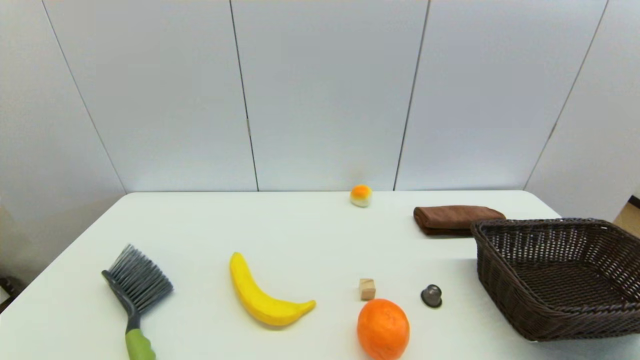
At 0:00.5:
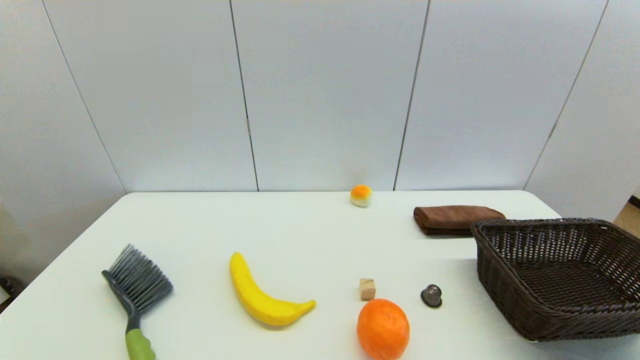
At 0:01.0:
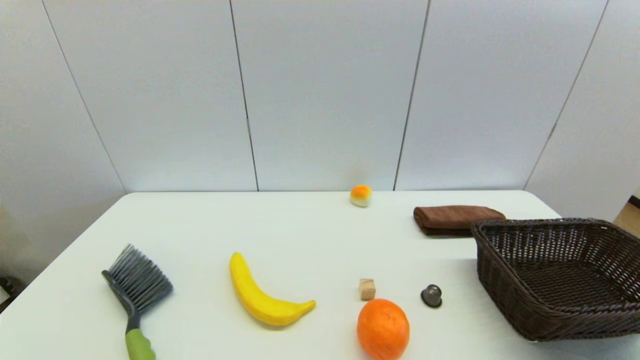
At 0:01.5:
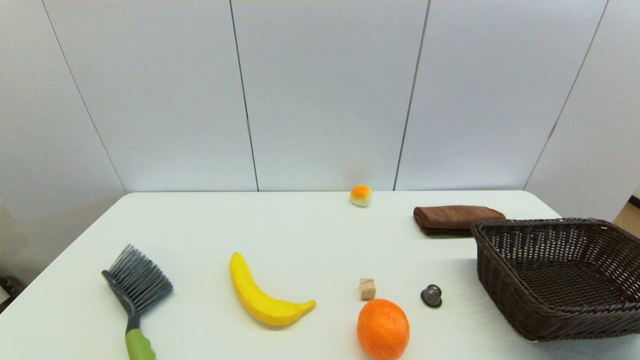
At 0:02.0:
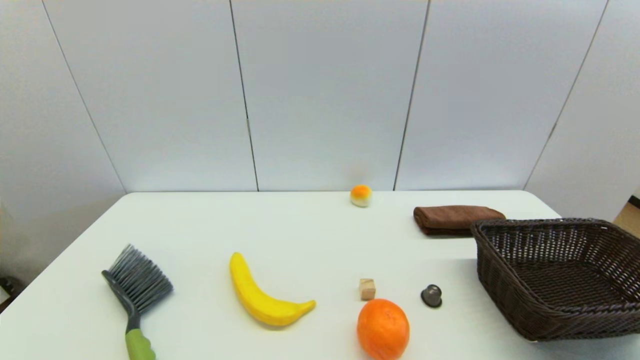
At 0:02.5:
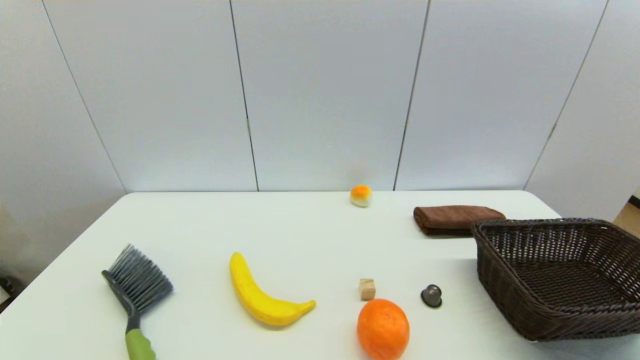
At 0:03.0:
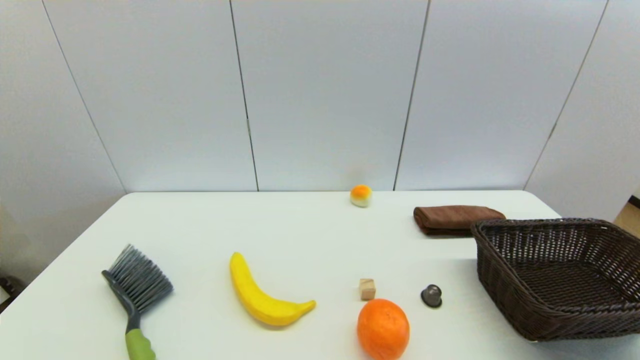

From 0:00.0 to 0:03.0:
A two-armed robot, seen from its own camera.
From 0:00.0 to 0:03.0: Both grippers stay about where they are.

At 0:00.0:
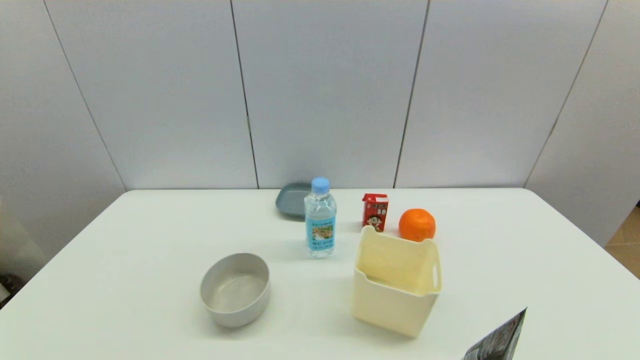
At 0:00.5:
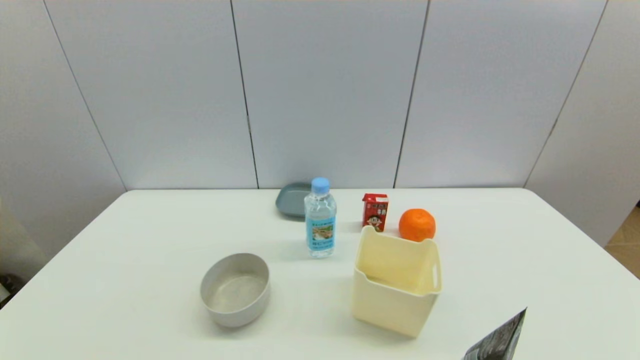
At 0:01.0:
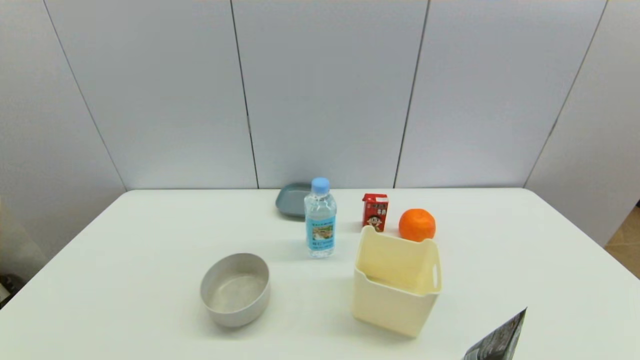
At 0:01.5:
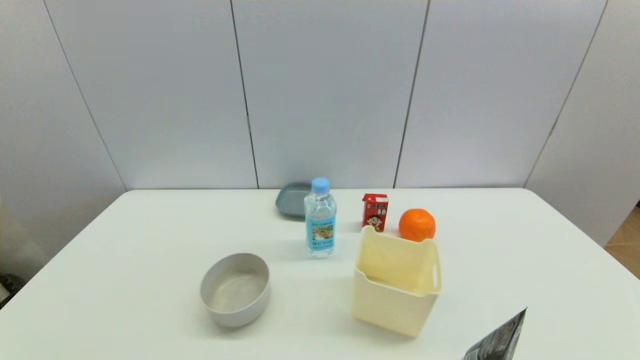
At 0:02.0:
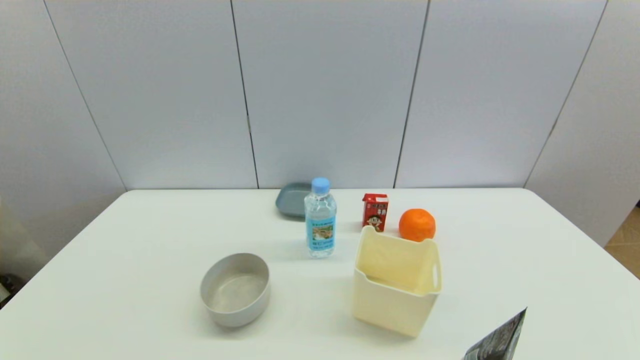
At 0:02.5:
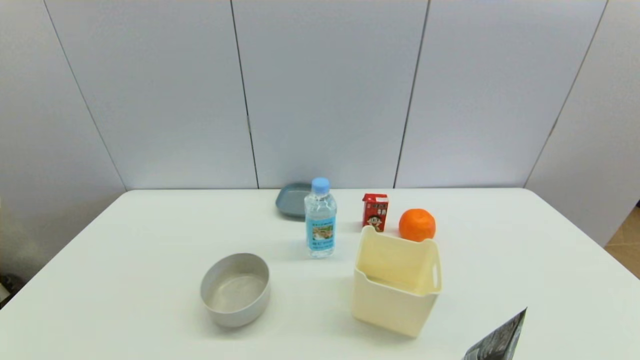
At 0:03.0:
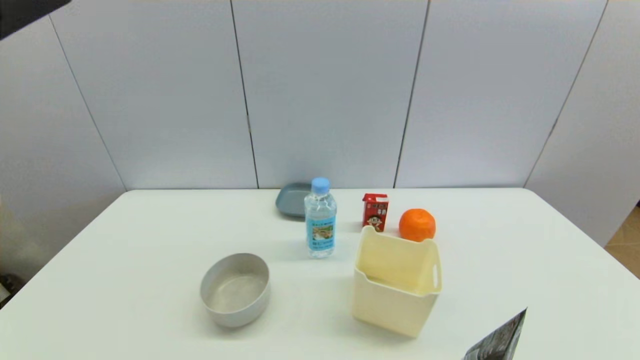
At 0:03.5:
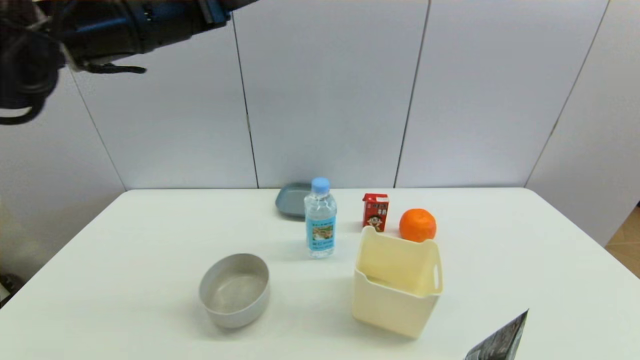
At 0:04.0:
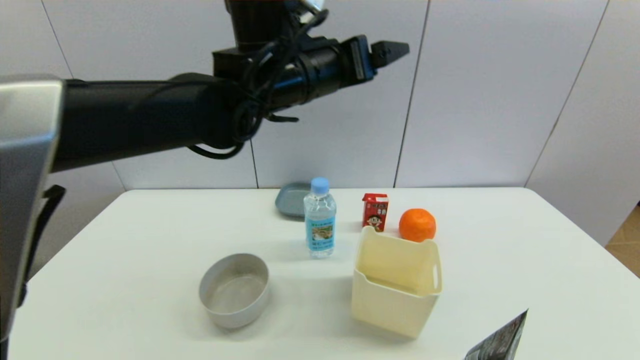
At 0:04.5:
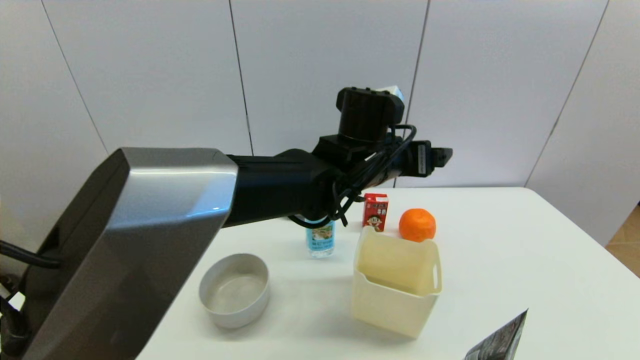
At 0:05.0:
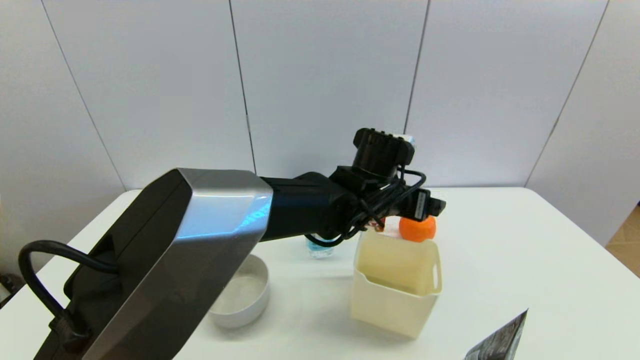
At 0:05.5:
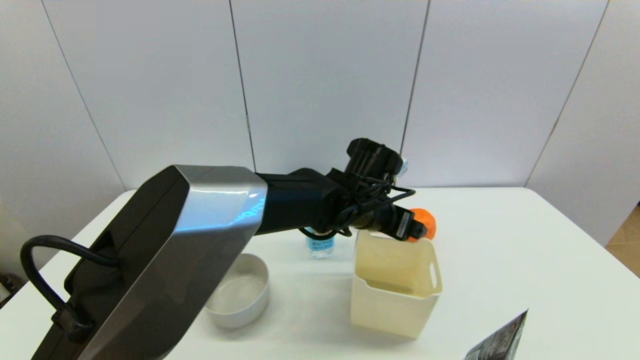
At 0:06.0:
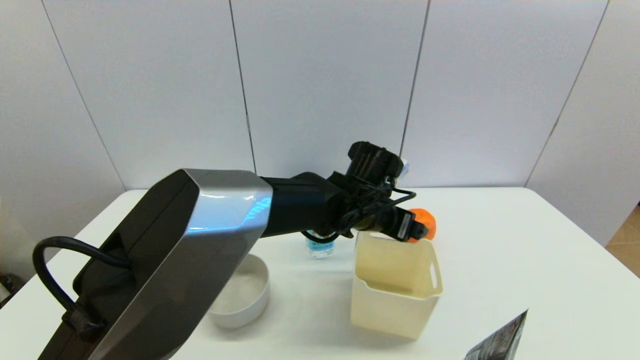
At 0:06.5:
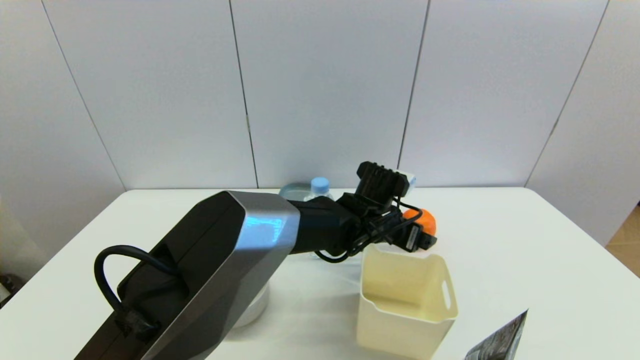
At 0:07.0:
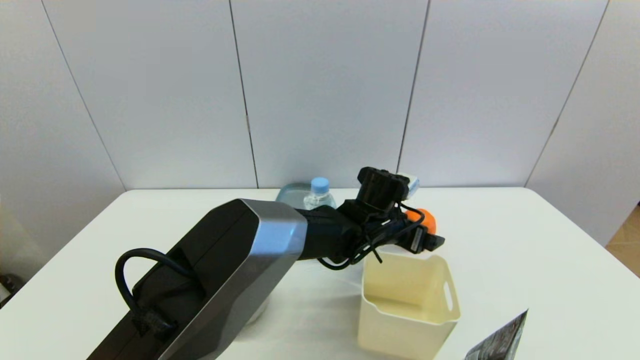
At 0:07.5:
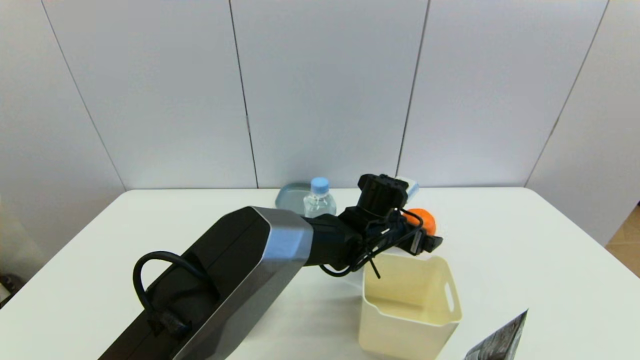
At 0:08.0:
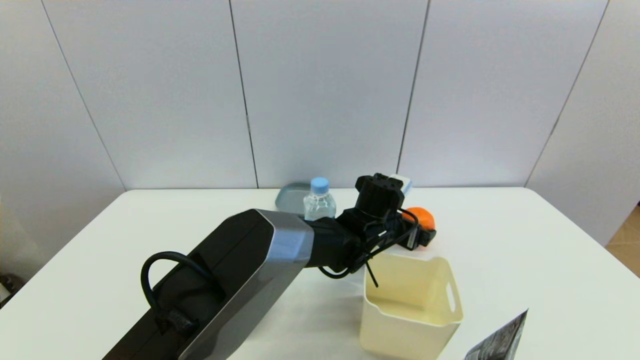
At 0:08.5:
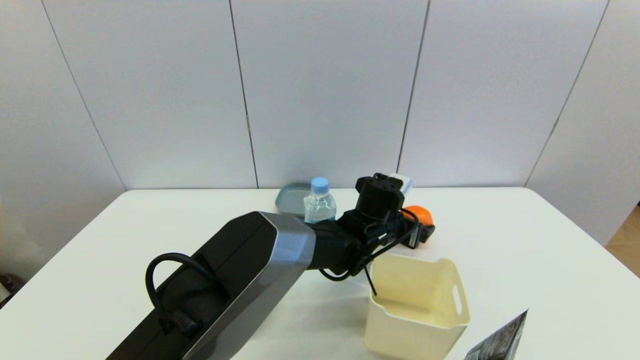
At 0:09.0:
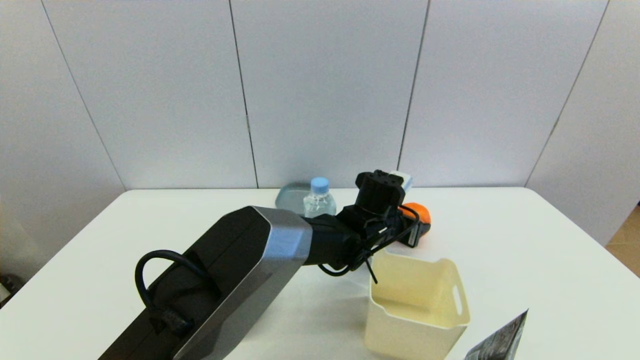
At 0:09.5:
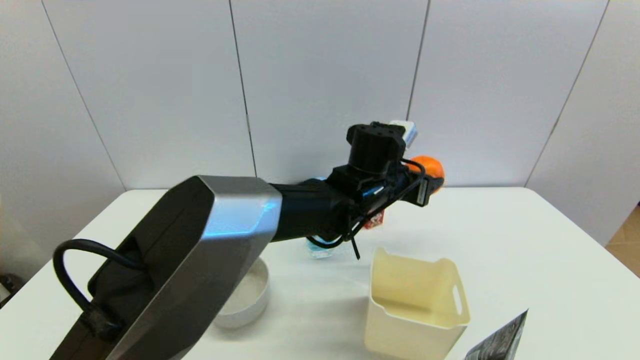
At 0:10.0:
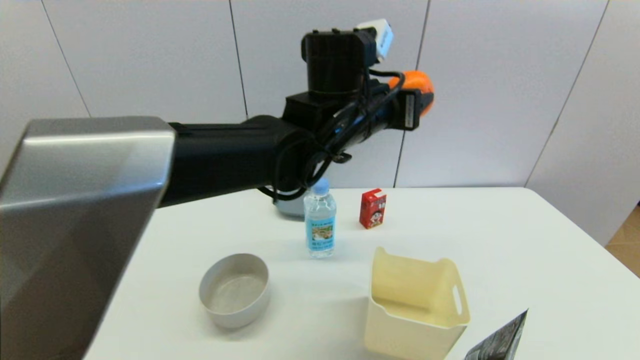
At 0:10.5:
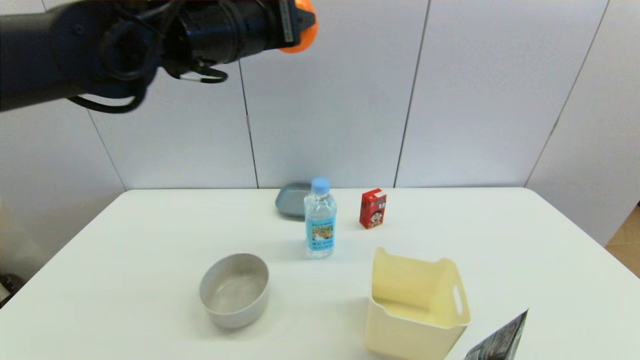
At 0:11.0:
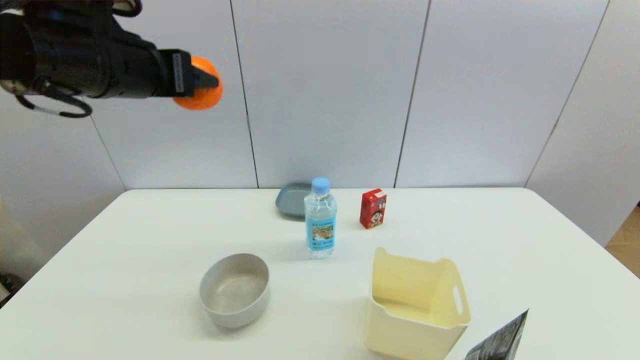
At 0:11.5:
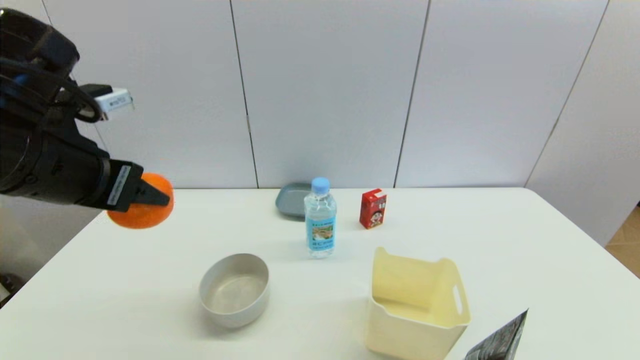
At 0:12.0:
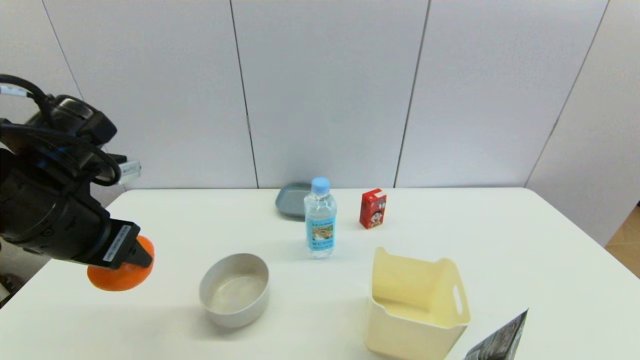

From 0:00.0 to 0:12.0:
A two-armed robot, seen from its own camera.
Step, from 0:02.5 to 0:08.5: Grasp the orange with left gripper.
From 0:00.0 to 0:02.0: Both grippers stay put.
From 0:02.0 to 0:04.0: The left gripper shifts approximately 50 cm forward, to the right and upward.
From 0:04.0 to 0:06.0: The left gripper heads downward and to the right, covering approximately 20 cm.
From 0:06.0 to 0:08.0: The left gripper goes roughly 5 cm downward.
From 0:08.0 to 0:10.0: The left gripper goes some 25 cm upward, and closes.
From 0:10.0 to 0:12.0: The left gripper goes about 30 cm to the left.

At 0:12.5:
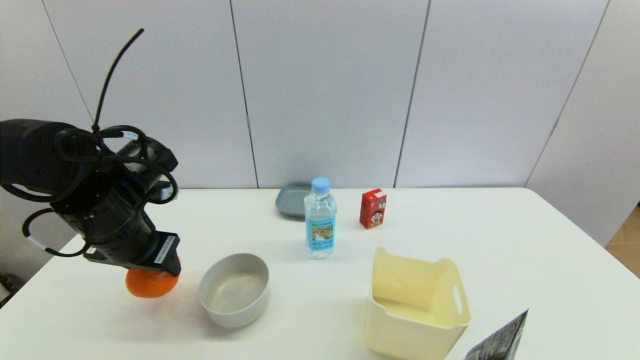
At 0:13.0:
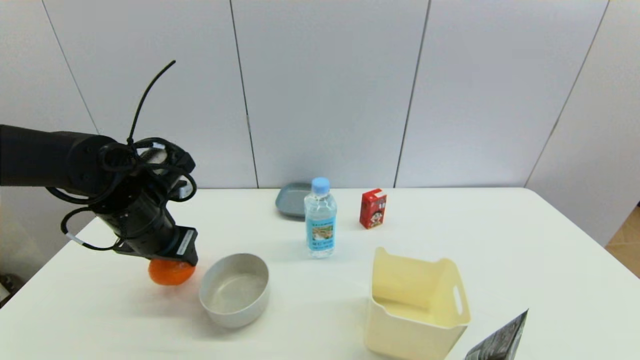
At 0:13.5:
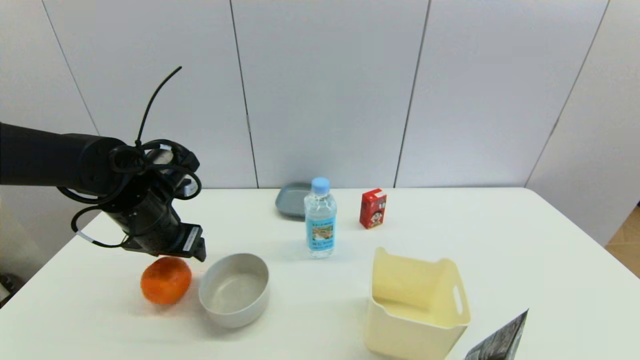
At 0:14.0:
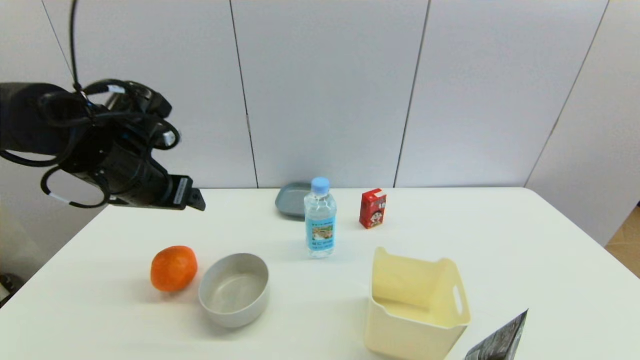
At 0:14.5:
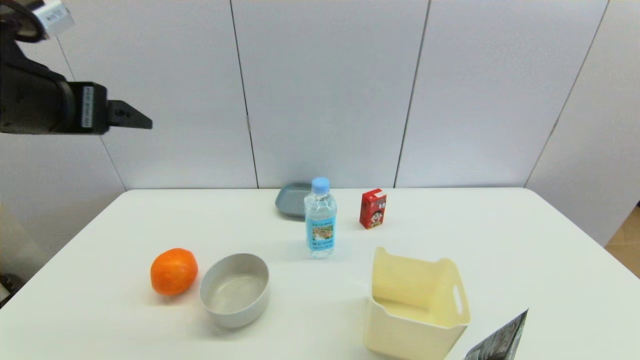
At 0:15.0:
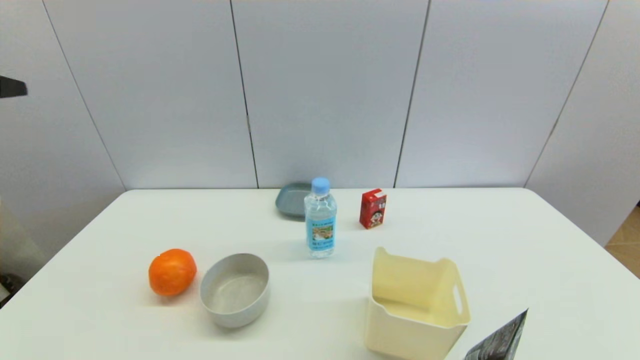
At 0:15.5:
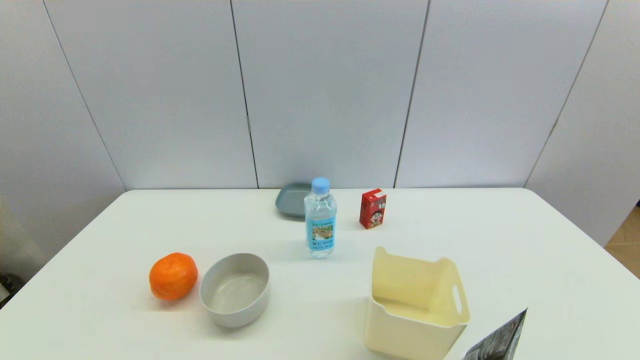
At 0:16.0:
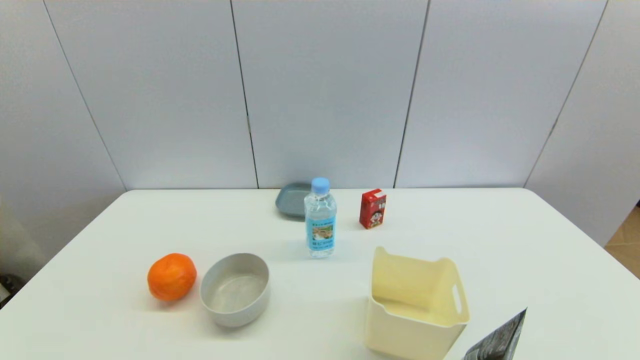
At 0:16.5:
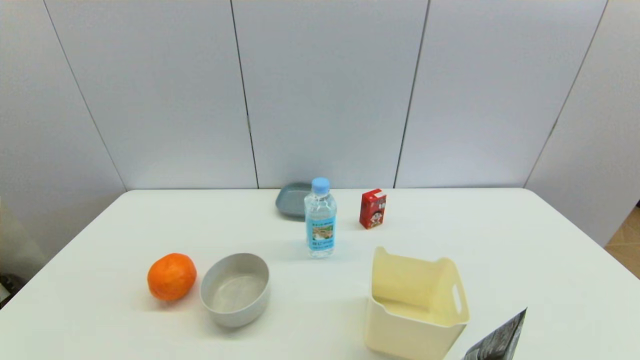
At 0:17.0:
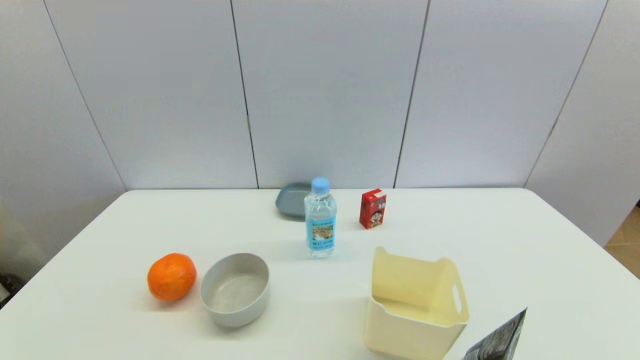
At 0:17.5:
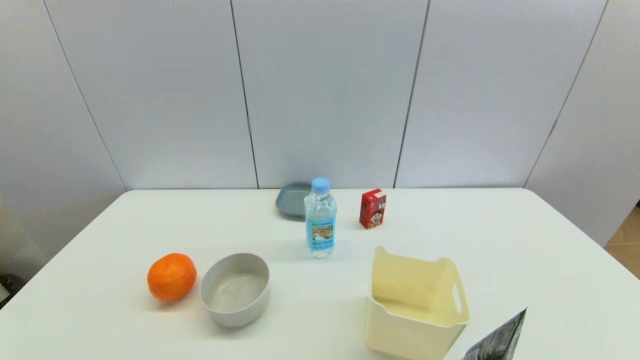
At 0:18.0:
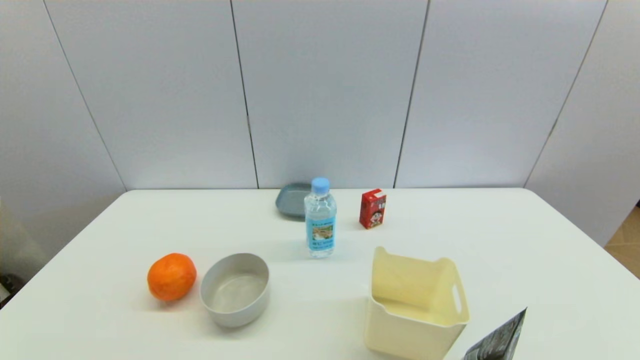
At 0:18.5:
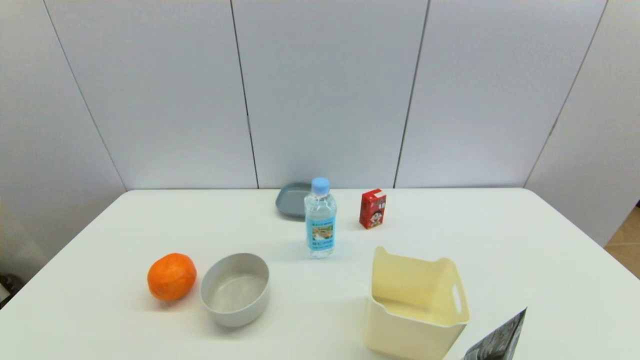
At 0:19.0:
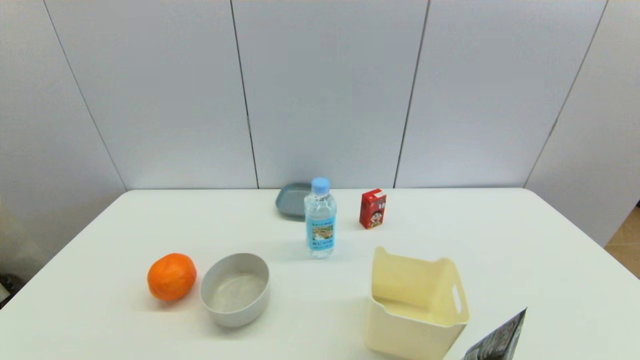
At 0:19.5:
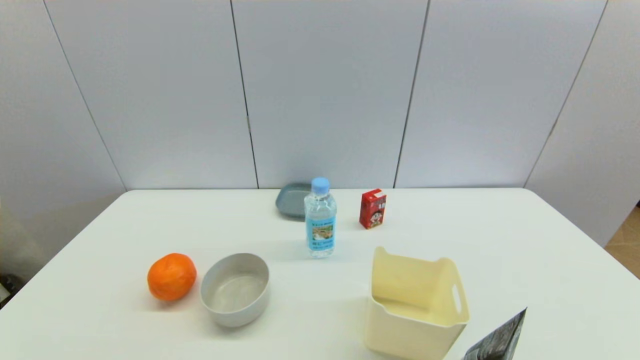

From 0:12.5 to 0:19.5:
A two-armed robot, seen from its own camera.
From 0:12.5 to 0:14.5: The left gripper moves upward, approximately 15 cm, and opens up.
From 0:14.5 to 0:16.0: The left gripper travels backward by about 25 cm.
From 0:17.5 to 0:19.5: Neither gripper changes place.
